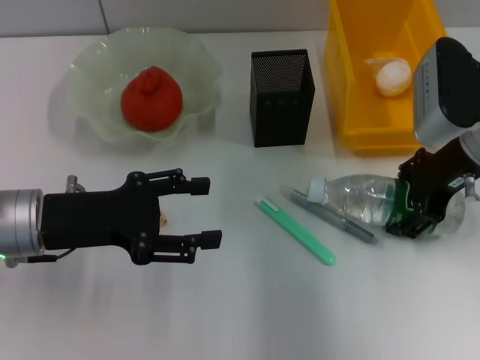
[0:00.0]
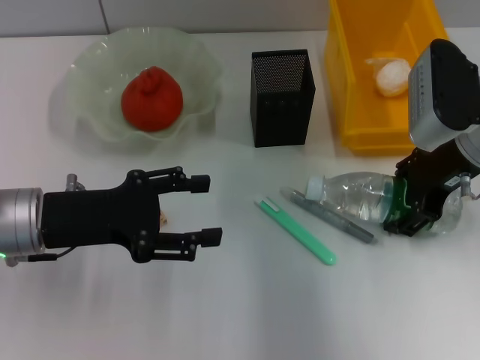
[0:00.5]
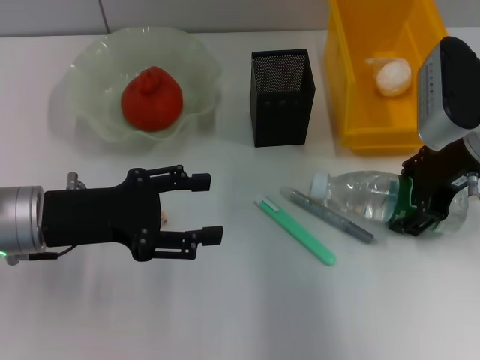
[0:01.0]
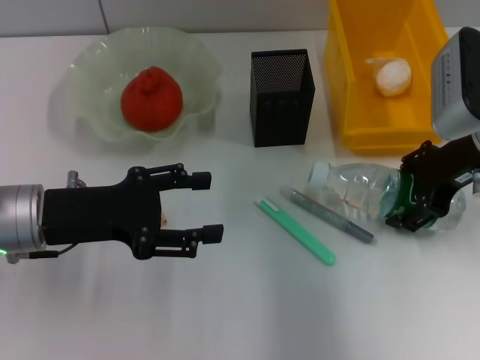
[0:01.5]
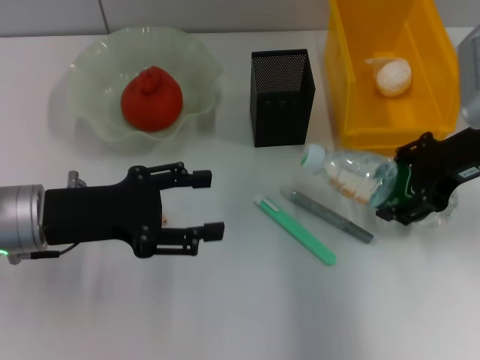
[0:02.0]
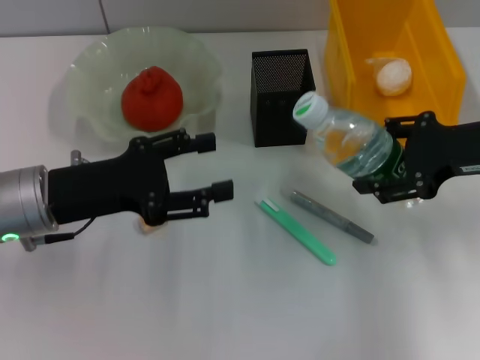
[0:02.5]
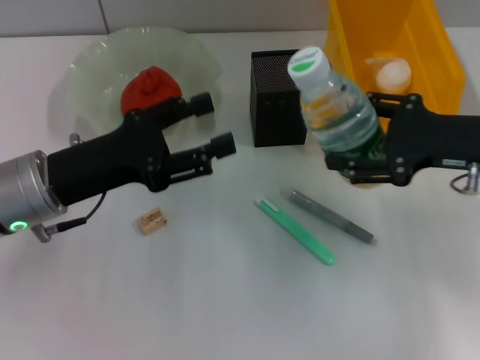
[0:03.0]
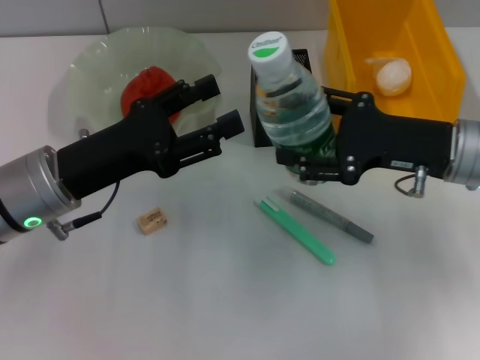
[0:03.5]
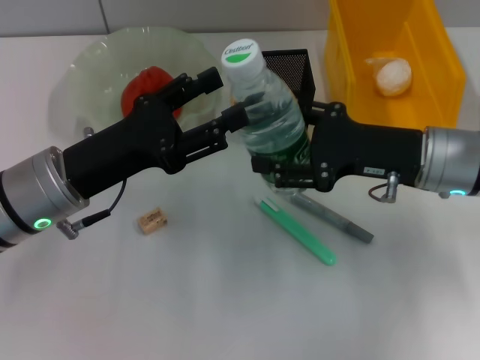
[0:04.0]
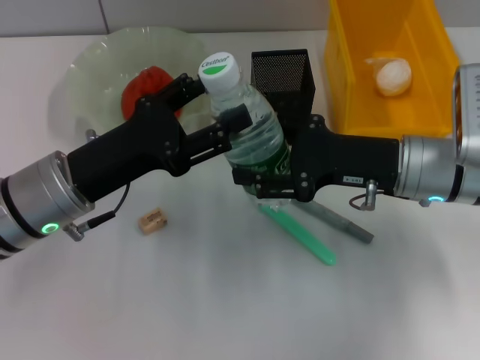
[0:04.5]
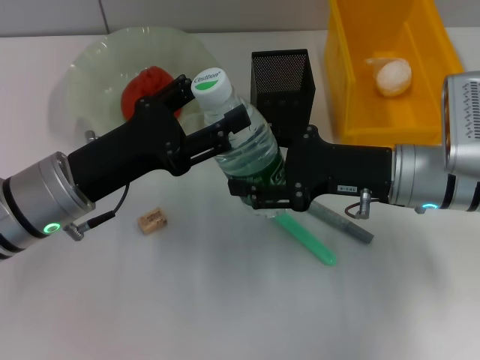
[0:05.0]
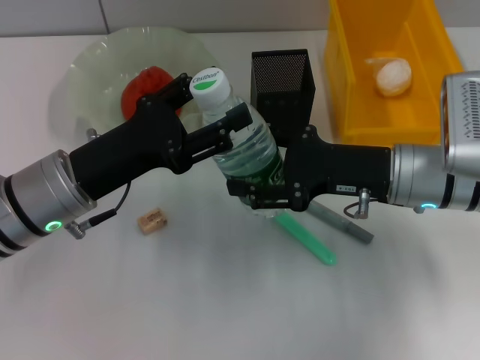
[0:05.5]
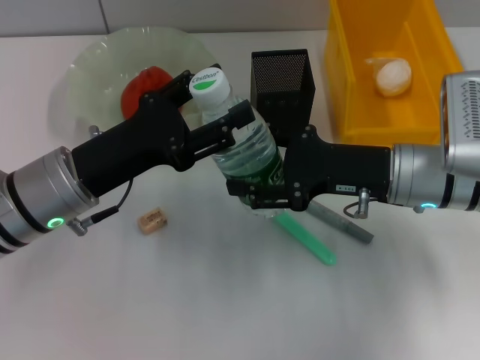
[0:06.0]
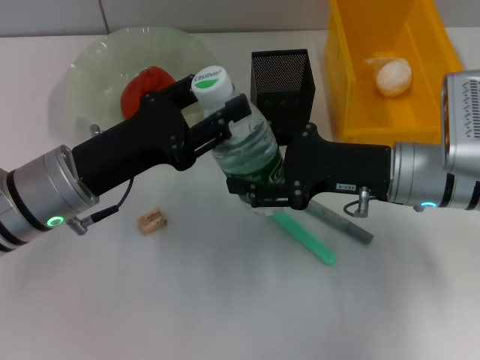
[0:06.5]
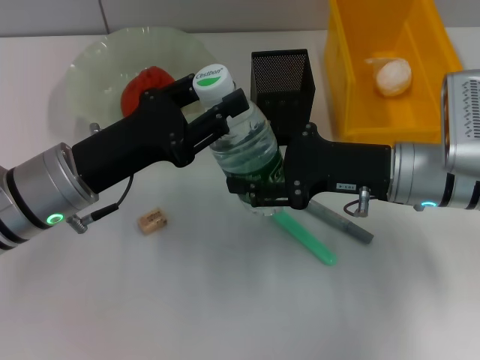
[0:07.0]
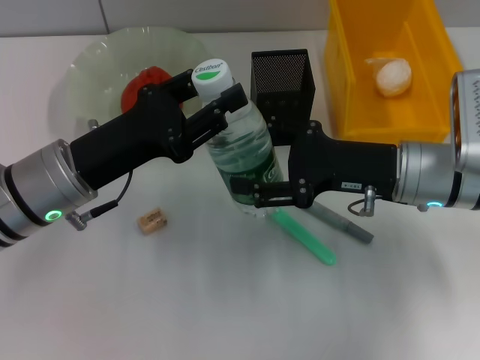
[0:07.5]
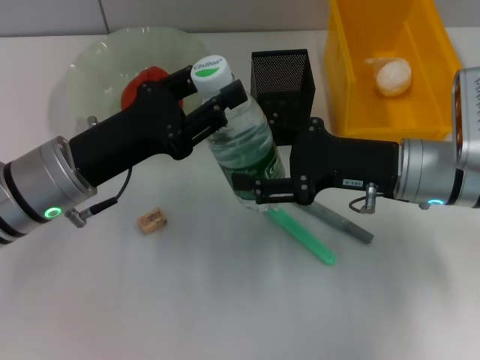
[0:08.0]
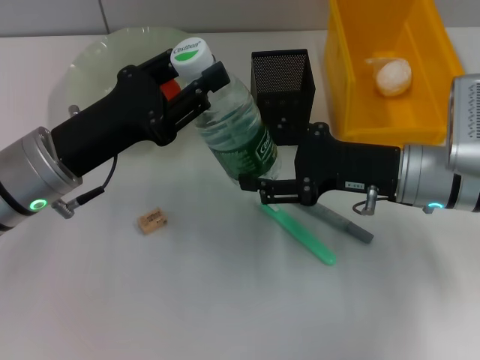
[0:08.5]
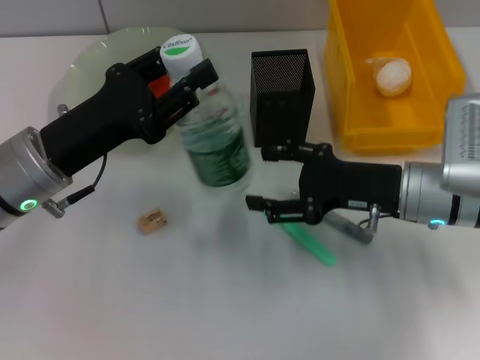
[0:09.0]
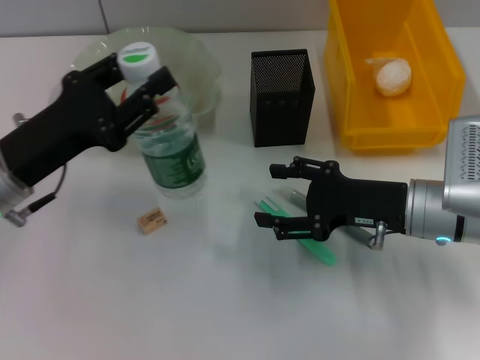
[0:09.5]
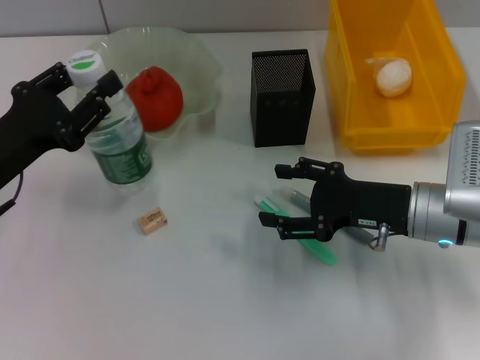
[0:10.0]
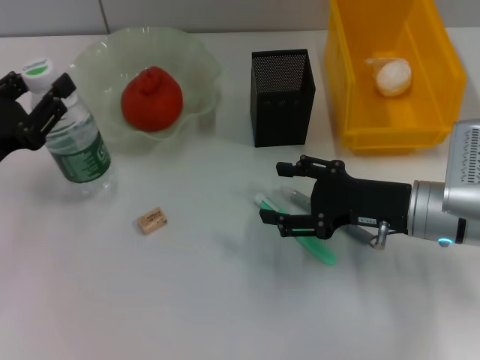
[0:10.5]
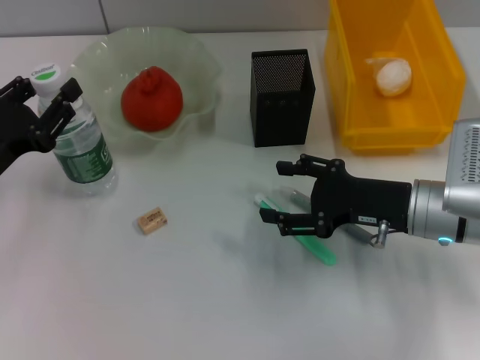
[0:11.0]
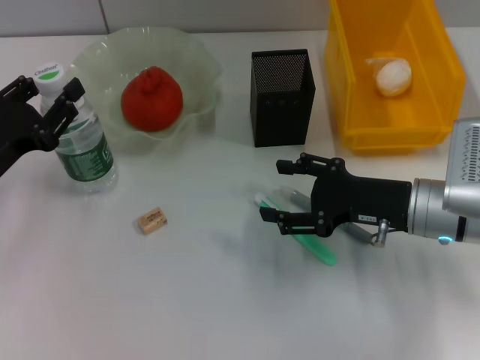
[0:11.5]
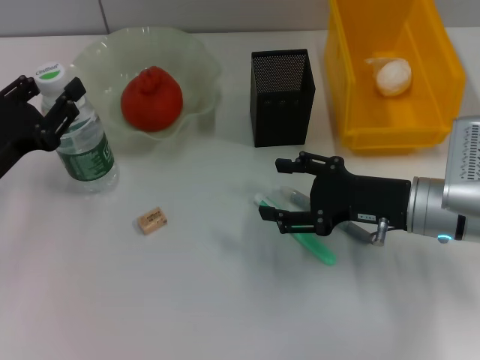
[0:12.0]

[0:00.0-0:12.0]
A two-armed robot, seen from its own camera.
Step, 0:01.5 to 0:08.5: Pass the water bottle from the right hand to the left hand.
0:00.0 to 0:02.0: The grippers make only small movements.
0:02.0 to 0:04.0: The right gripper is displaced downward by about 5 cm.
0:04.0 to 0:06.0: The grippers move only a little.
0:06.0 to 0:08.0: The left gripper closes up.
0:08.0 to 0:10.0: The left gripper goes some 10 cm to the left.
0:10.0 to 0:12.0: The grippers move only a little.

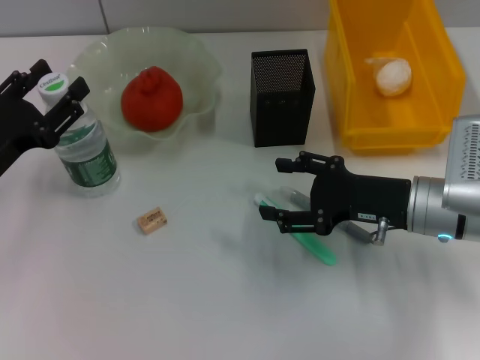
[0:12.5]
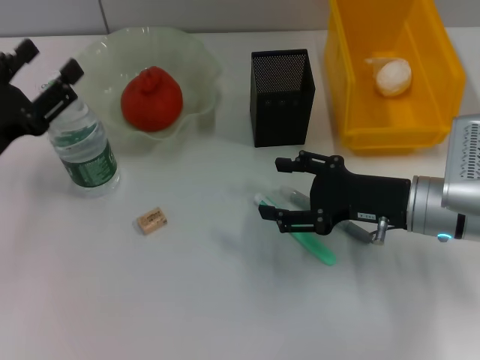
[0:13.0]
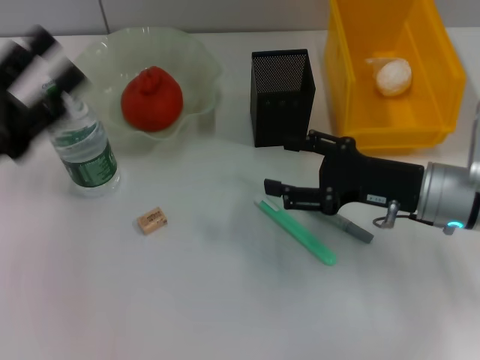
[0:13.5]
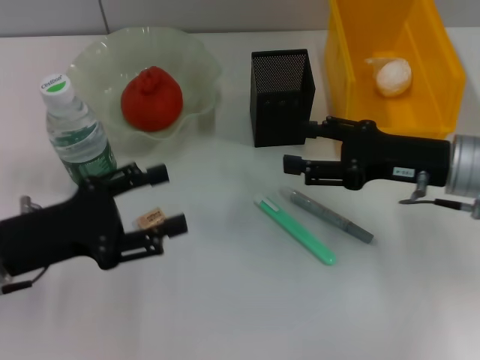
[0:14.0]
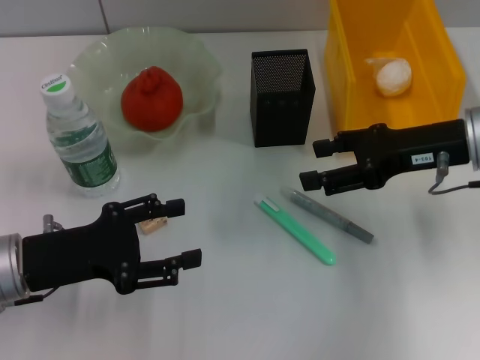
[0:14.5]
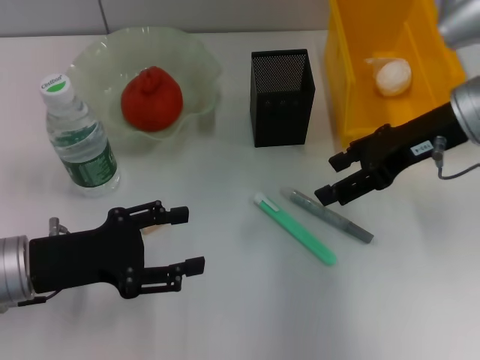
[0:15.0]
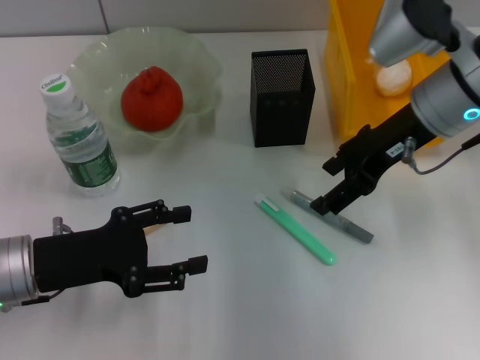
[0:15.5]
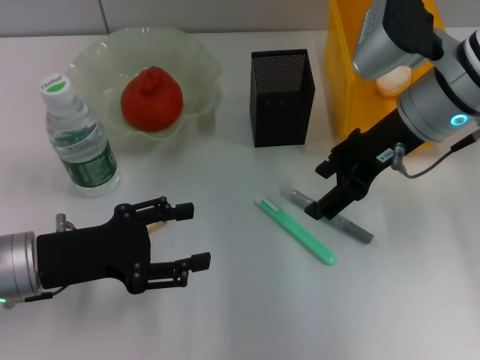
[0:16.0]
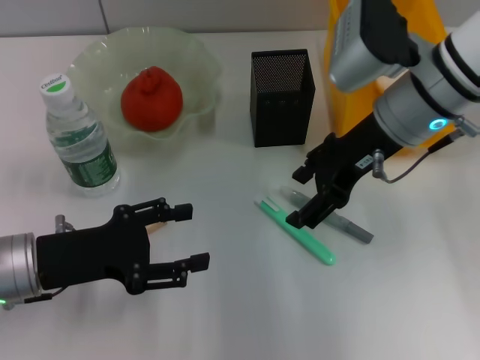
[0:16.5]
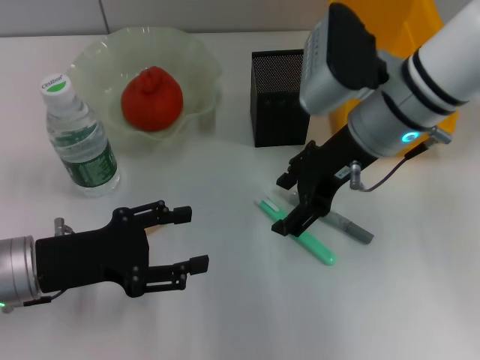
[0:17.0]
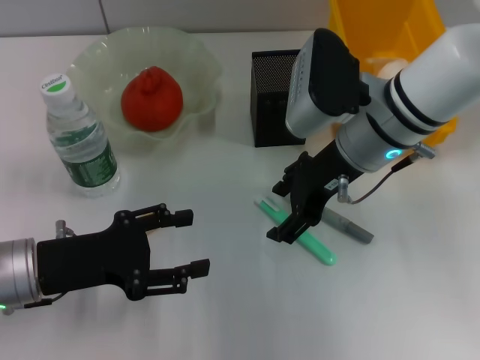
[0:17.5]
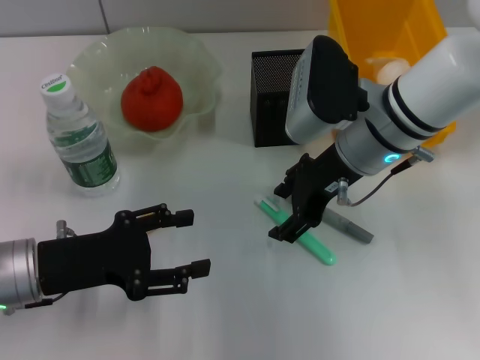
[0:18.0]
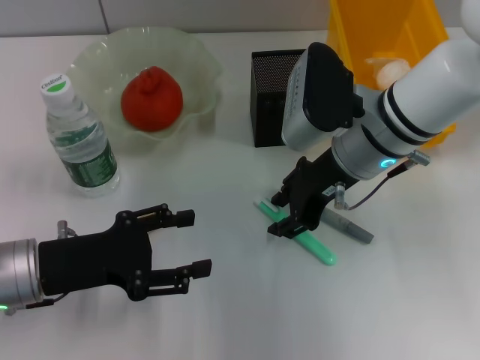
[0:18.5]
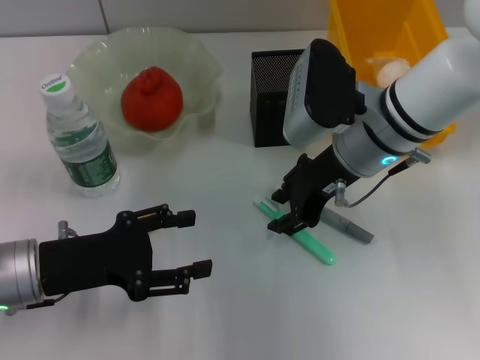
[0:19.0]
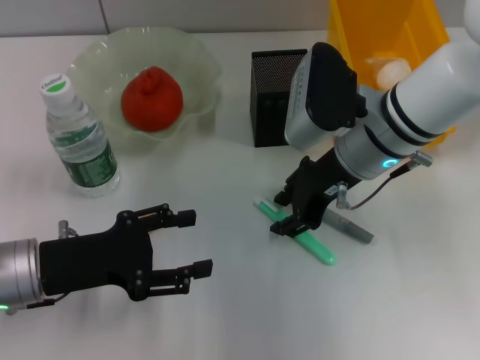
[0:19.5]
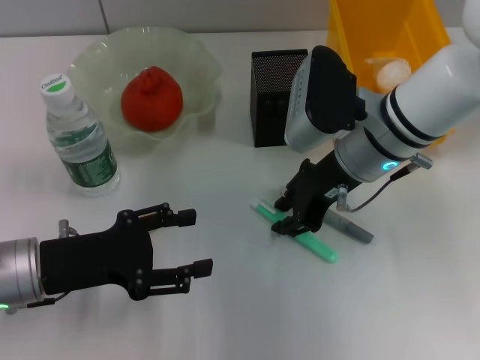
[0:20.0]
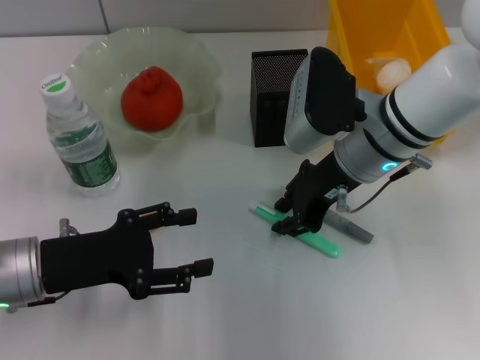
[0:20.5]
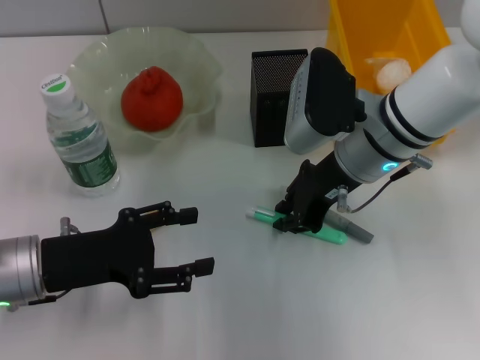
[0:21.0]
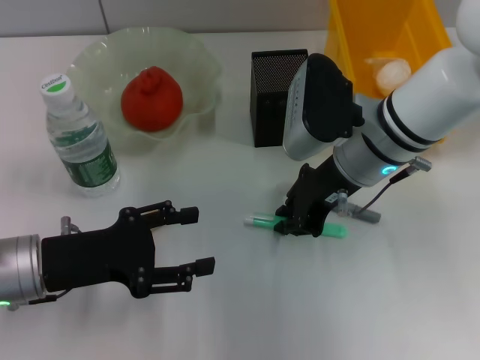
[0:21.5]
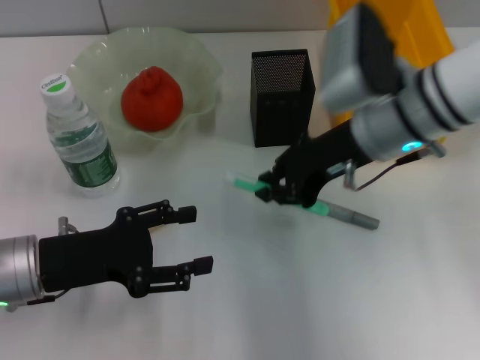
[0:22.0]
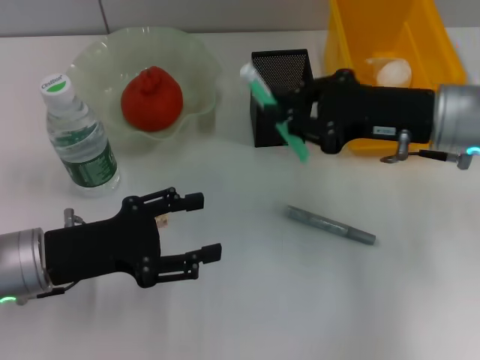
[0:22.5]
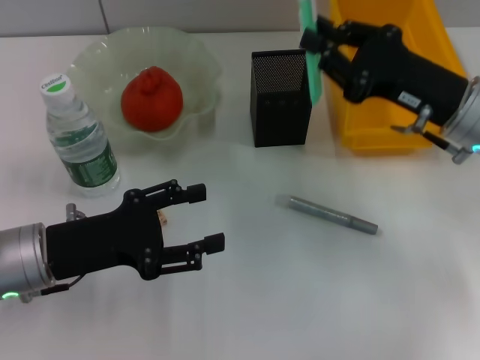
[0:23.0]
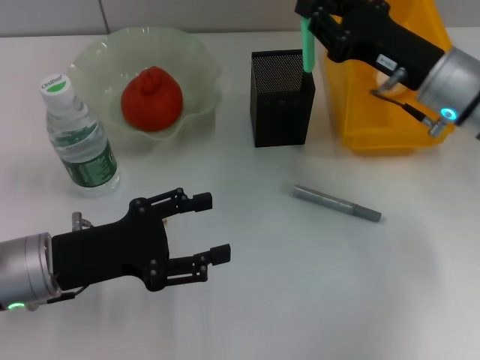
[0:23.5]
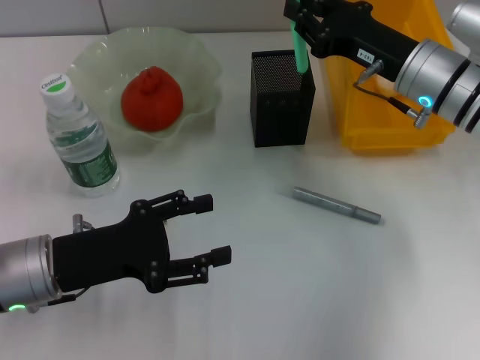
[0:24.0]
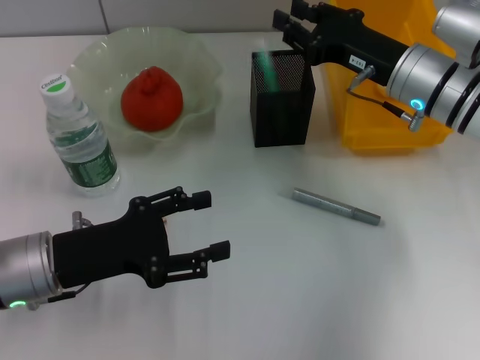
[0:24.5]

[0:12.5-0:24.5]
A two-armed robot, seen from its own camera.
Step, 0:13.0 to 0:21.0: Grab the blue utility knife with the right hand.
0:12.5 to 0:14.5: The right gripper moves upward, approximately 10 cm. Meanwhile the left gripper moves some 5 cm.
0:14.5 to 0:16.5: The right gripper is displaced to the left by some 10 cm.
0:16.5 to 0:18.5: The right gripper ends up approximately 5 cm from where it was, and closes.
0:18.5 to 0:20.5: Neither gripper changes place.
0:20.5 to 0:22.5: The right gripper heads to the right, covering some 10 cm.
0:22.5 to 0:24.5: The right gripper travels forward by some 5 cm.

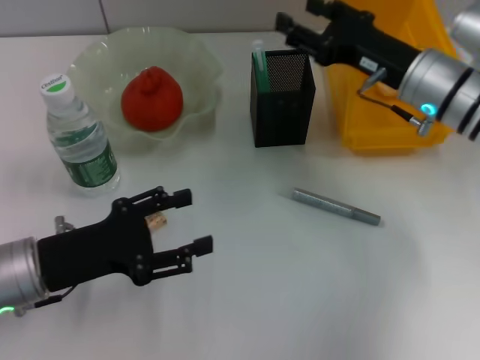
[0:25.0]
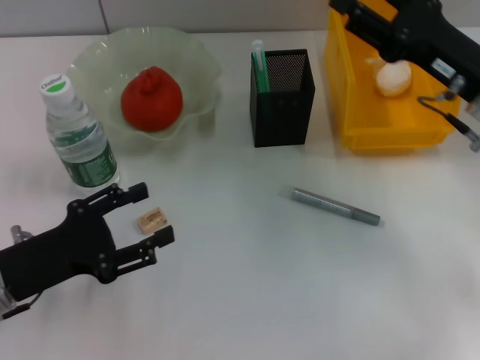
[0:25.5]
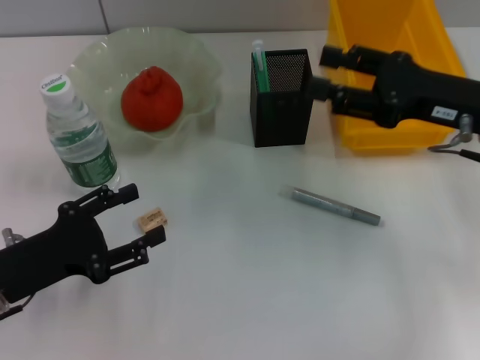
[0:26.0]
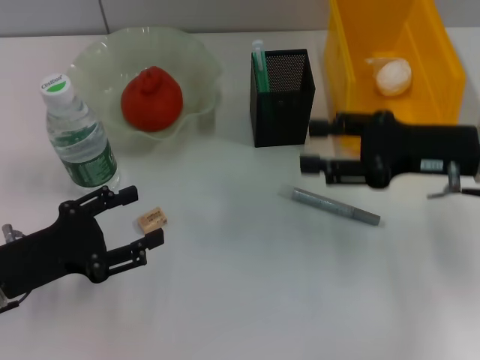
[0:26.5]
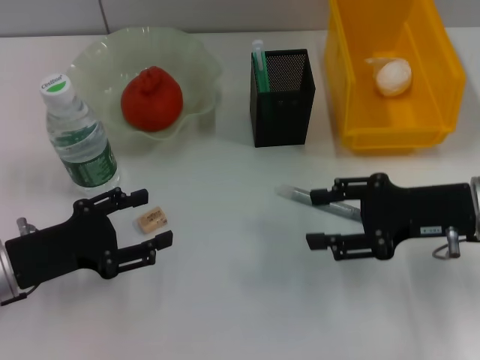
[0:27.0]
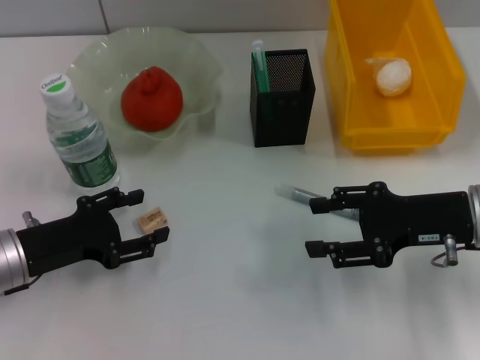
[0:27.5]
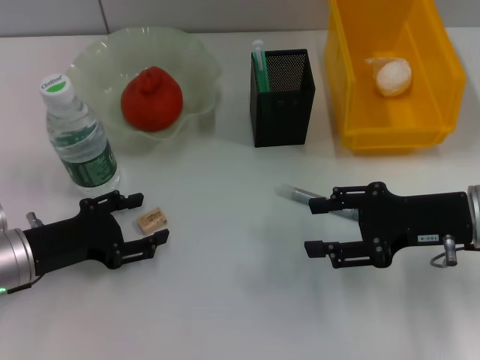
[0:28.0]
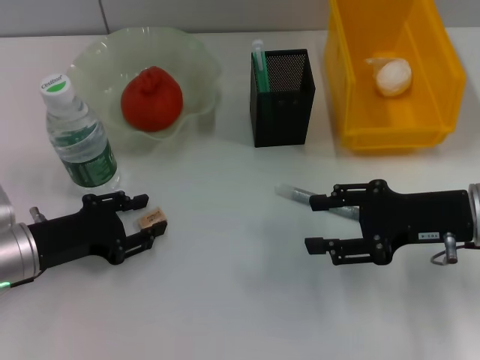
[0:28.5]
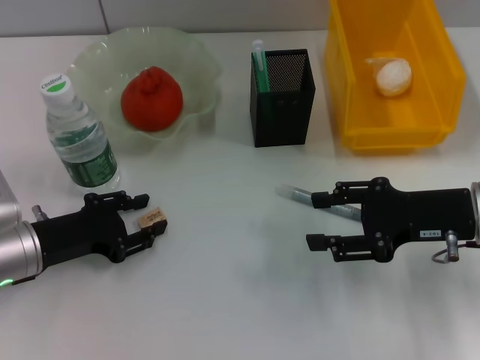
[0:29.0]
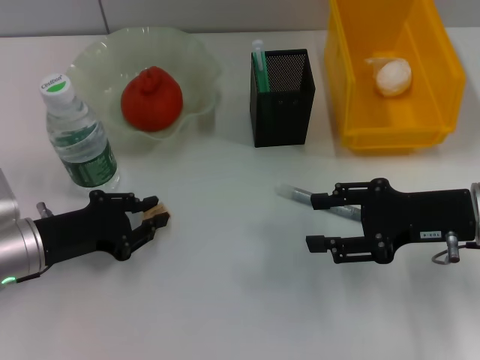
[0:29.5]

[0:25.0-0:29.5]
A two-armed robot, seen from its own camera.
Step, 0:25.5 to 0:29.0: Grab the eraser with the right hand.
0:25.0 to 0:27.0: The right gripper goes roughly 10 cm backward and to the right.
0:27.0 to 0:29.5: The left gripper closes up.
